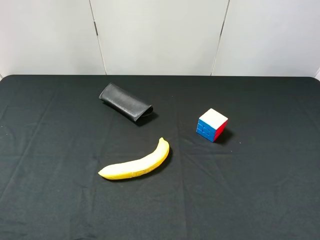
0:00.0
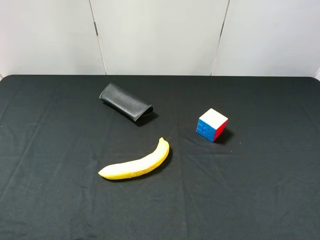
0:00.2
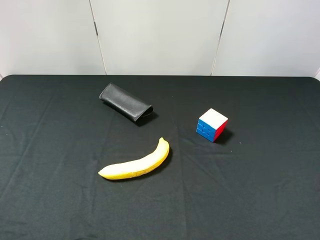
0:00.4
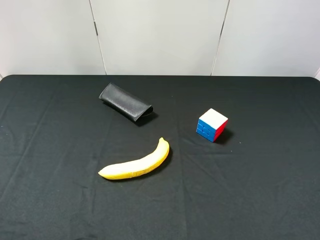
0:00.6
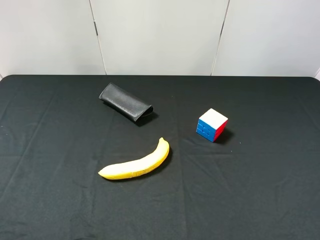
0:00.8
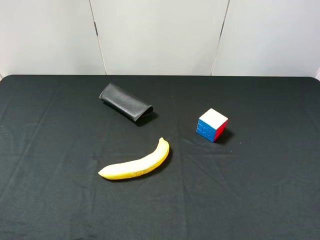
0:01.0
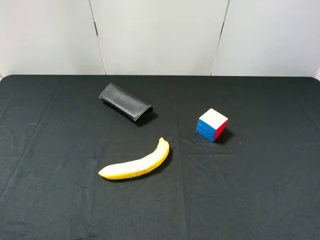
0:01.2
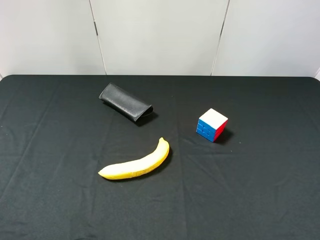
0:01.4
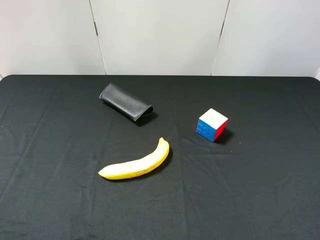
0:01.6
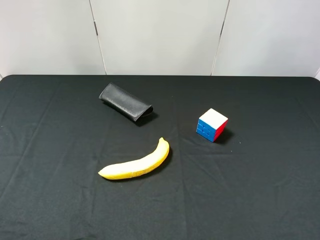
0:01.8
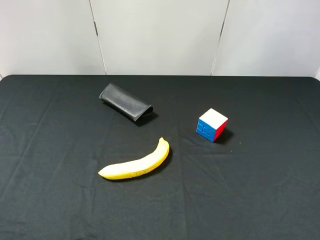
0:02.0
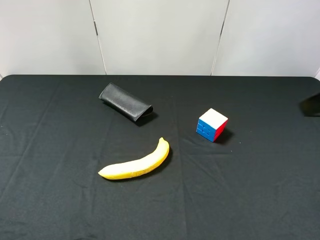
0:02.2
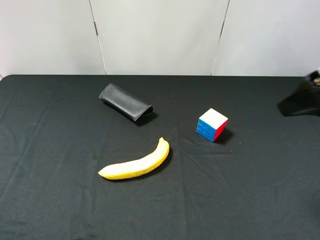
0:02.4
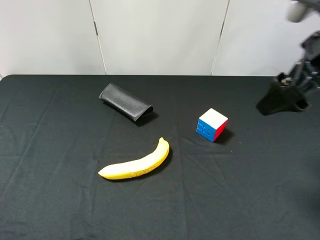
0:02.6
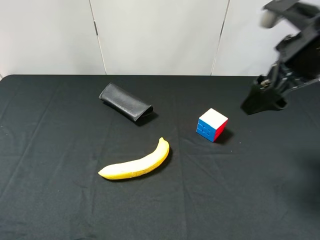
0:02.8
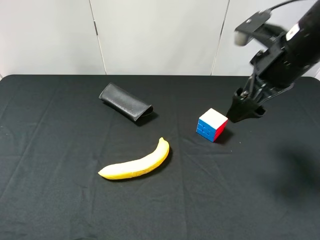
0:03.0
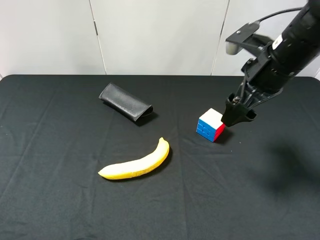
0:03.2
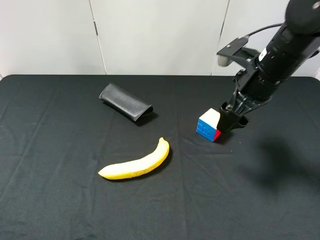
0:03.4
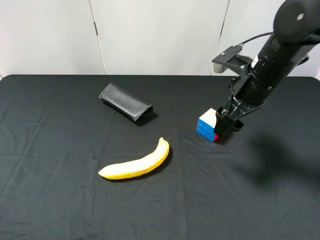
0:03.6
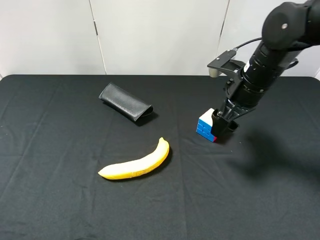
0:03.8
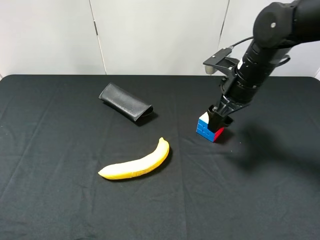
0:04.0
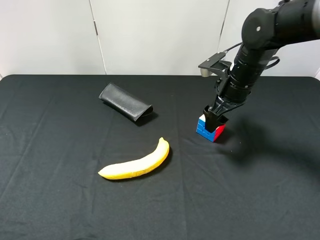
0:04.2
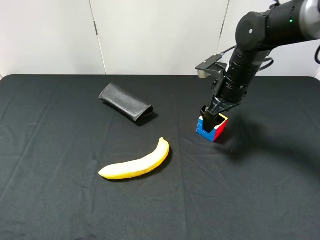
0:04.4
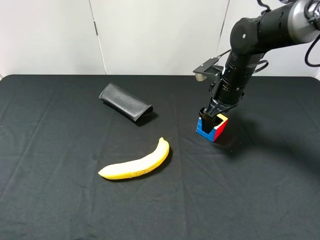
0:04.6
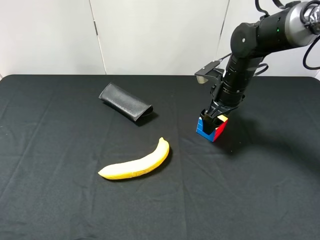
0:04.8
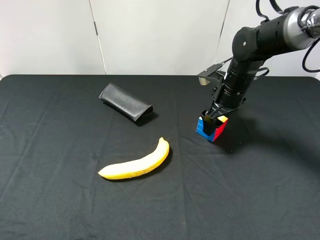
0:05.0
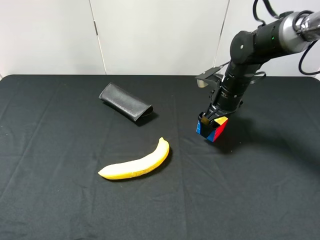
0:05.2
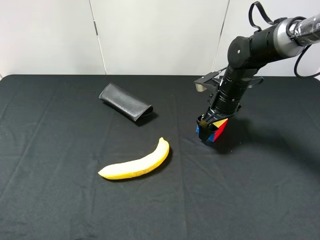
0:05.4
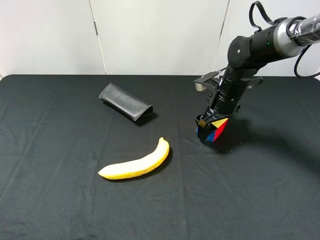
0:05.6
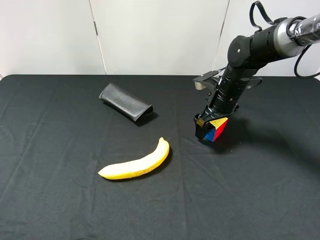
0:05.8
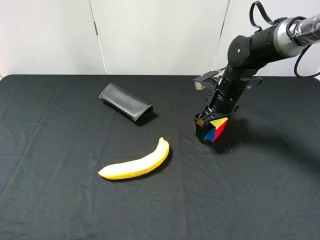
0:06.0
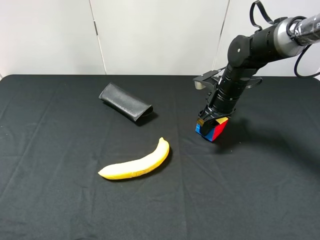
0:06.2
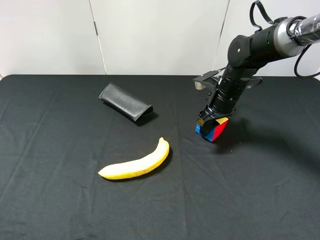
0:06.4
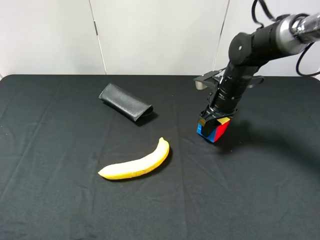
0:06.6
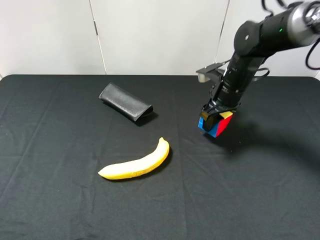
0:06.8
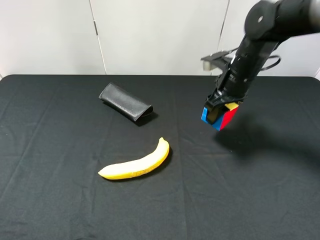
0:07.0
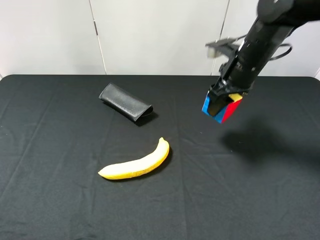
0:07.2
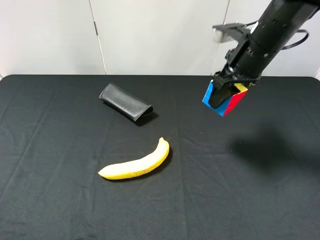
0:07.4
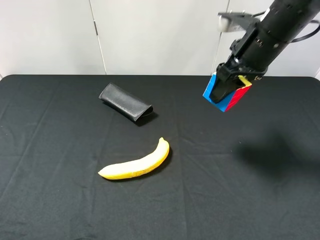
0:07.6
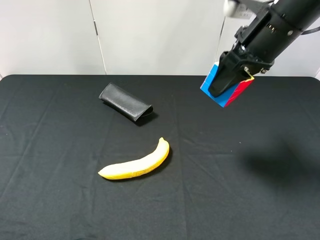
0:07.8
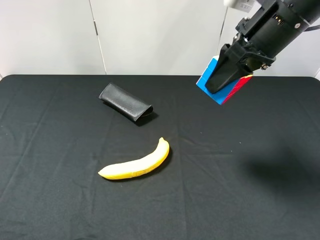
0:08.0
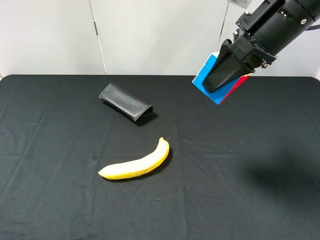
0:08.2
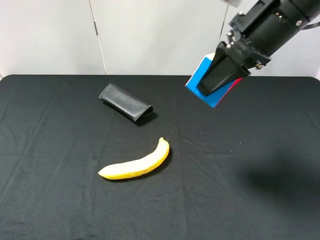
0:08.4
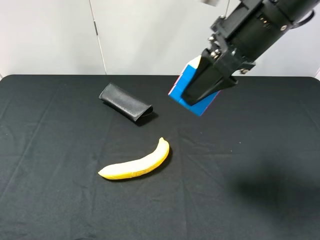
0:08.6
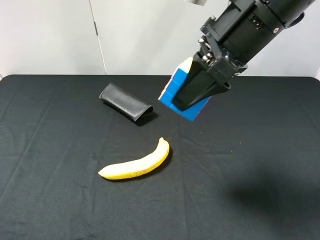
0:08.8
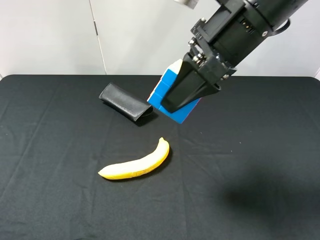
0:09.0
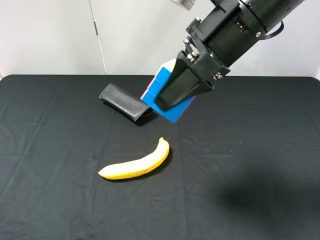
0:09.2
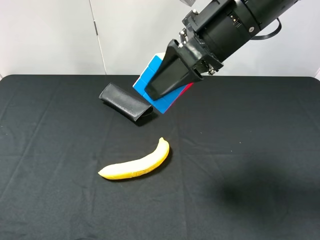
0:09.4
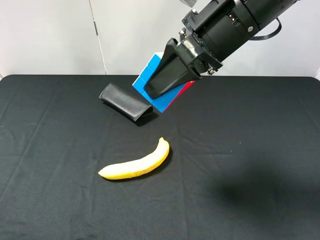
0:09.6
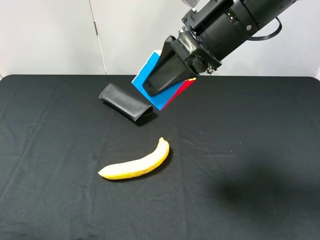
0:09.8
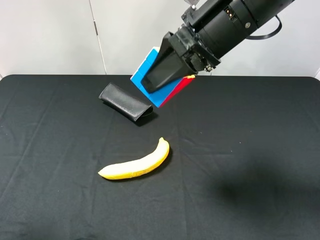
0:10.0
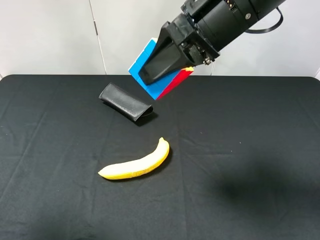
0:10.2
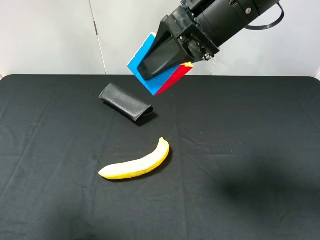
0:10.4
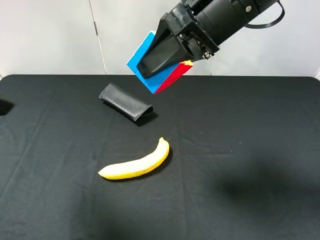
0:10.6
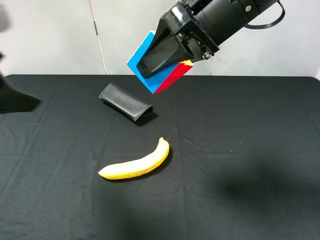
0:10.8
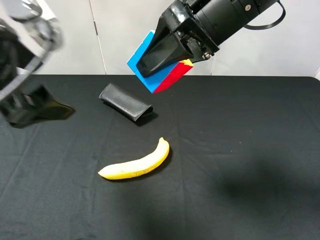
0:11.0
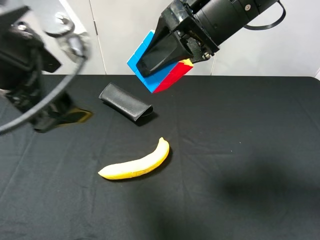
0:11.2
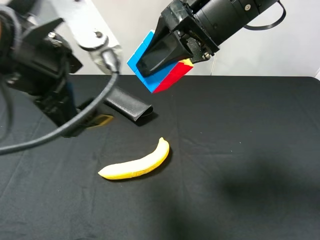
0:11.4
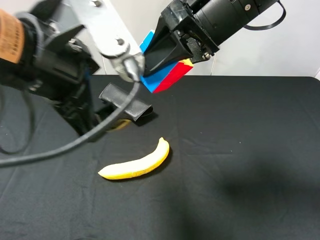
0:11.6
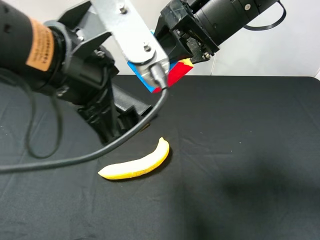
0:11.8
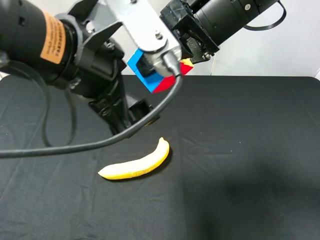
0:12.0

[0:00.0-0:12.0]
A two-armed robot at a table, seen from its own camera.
Task of the whole recording: use the right gripper to pick up the item and transfer it from the right gripper to the left gripper.
Step, 0:00.0 to 0:06.2: Use the right gripper to grab the Rubik's Cube on the right side of the table.
0:01.6 to 0:03.0: The right gripper is displaced forward and to the left by roughly 25 cm.
0:03.0 to 0:04.4: The right gripper is displaced downward and forward by roughly 15 cm.
0:04.4 to 0:06.0: The right gripper shifts by approximately 5 cm.
0:06.0 to 0:07.6: The right gripper goes about 15 cm upward and backward, and closes.
0:07.6 to 0:09.0: The right gripper shifts roughly 10 cm to the left and backward.
0:09.0 to 0:10.4: The left gripper is displaced forward and upward by about 15 cm.
0:10.4 to 0:12.0: The left gripper goes approximately 20 cm to the right.

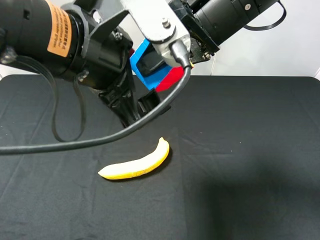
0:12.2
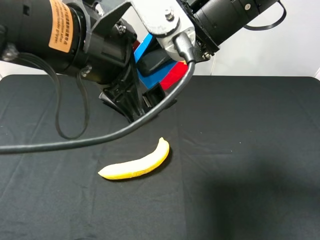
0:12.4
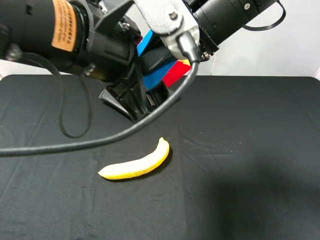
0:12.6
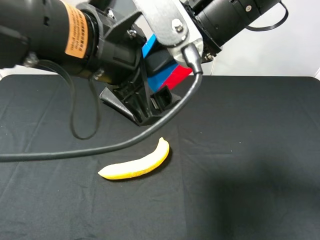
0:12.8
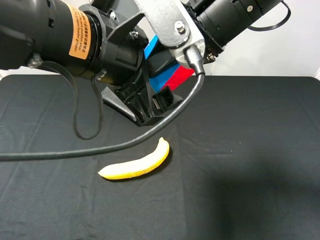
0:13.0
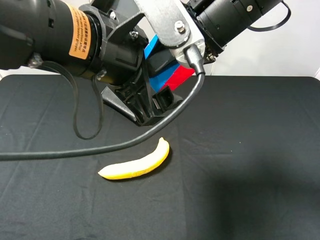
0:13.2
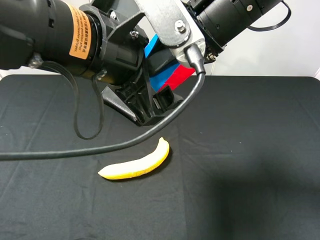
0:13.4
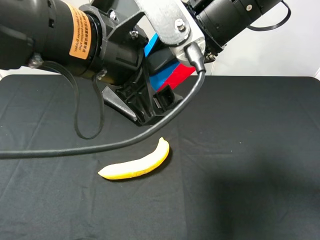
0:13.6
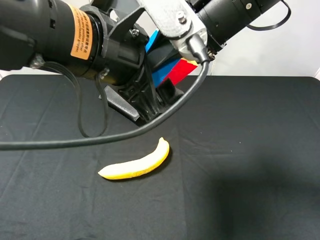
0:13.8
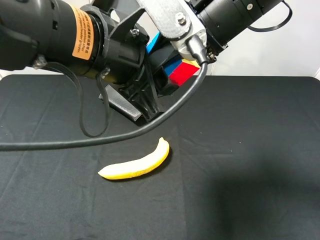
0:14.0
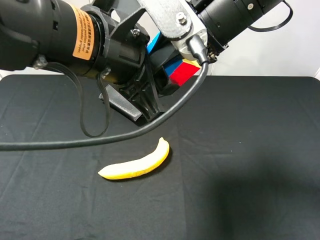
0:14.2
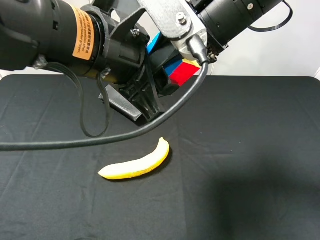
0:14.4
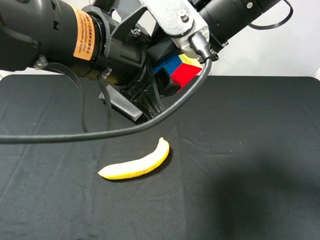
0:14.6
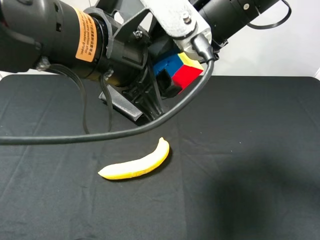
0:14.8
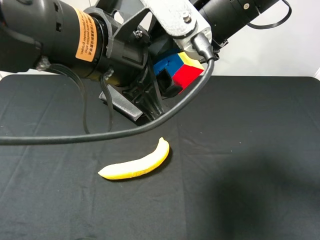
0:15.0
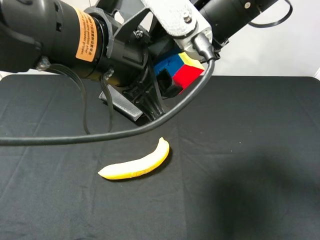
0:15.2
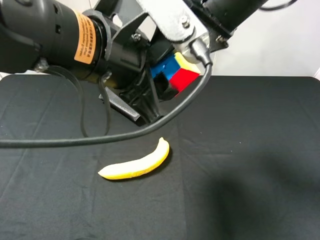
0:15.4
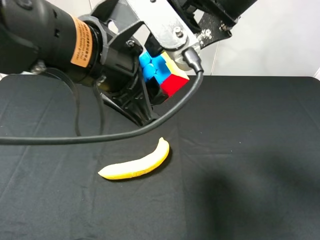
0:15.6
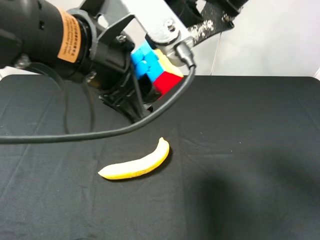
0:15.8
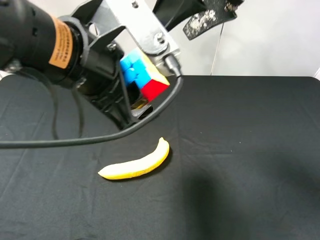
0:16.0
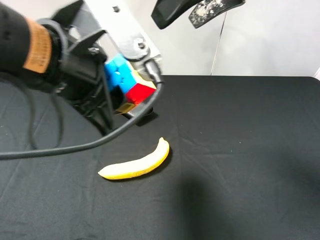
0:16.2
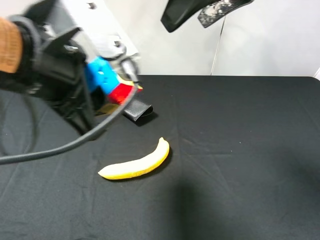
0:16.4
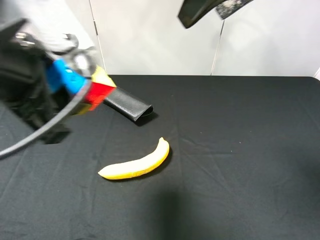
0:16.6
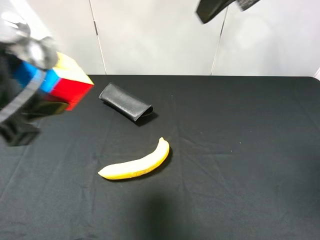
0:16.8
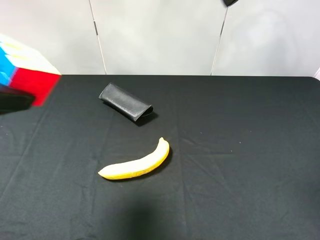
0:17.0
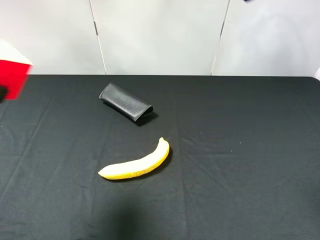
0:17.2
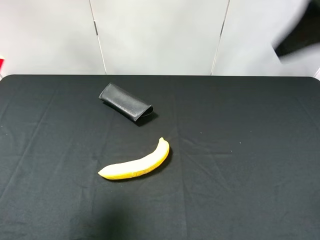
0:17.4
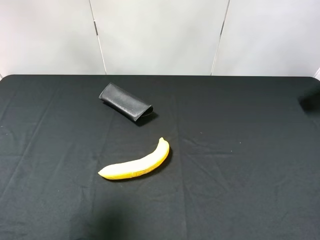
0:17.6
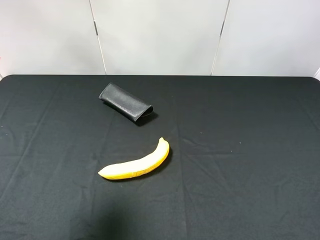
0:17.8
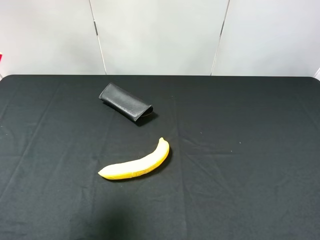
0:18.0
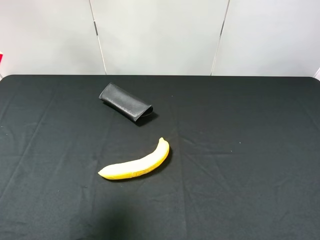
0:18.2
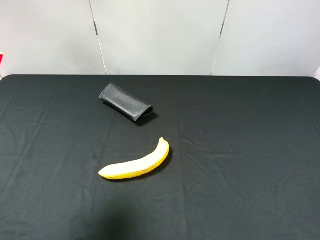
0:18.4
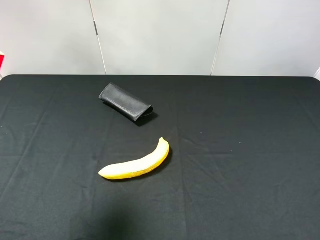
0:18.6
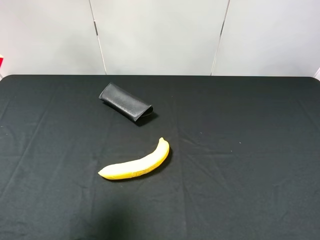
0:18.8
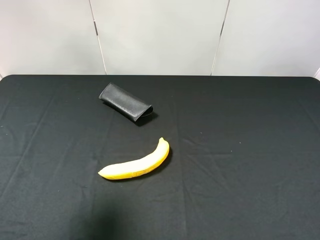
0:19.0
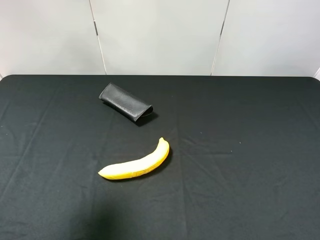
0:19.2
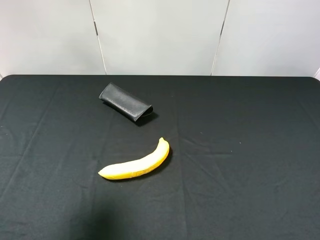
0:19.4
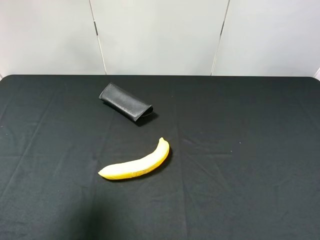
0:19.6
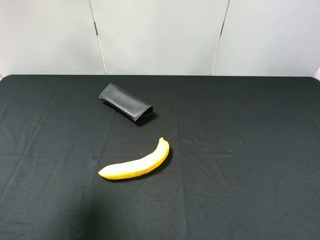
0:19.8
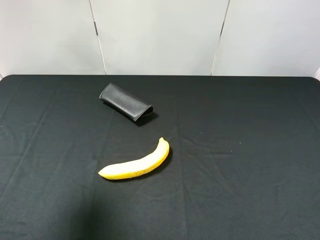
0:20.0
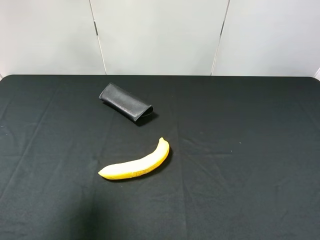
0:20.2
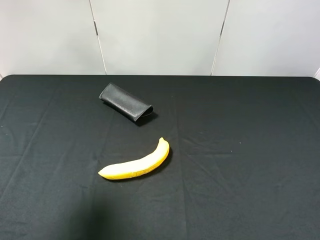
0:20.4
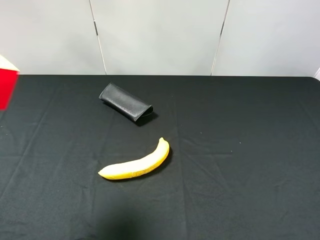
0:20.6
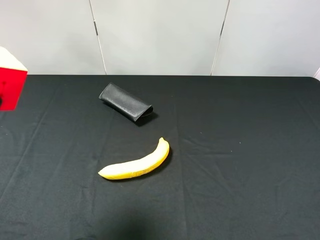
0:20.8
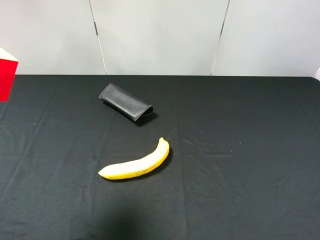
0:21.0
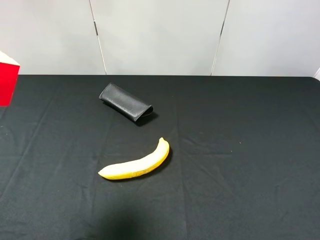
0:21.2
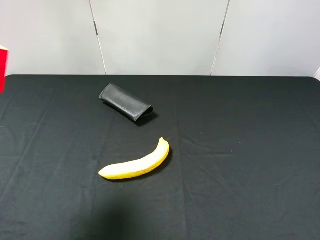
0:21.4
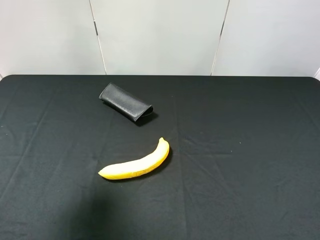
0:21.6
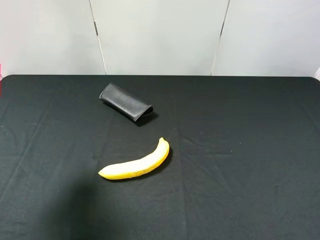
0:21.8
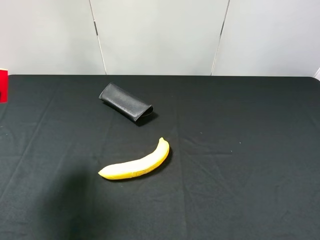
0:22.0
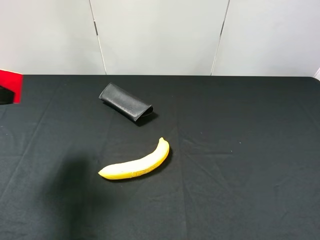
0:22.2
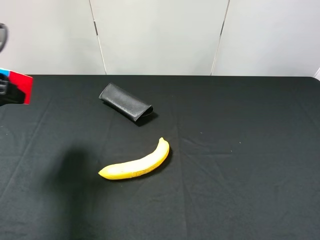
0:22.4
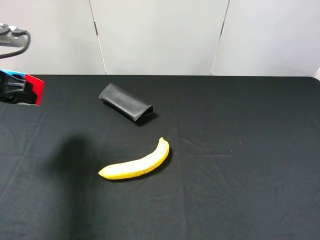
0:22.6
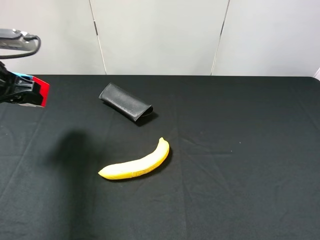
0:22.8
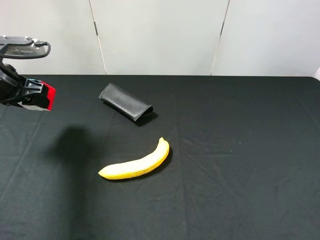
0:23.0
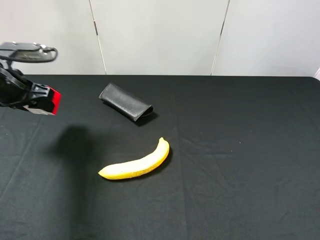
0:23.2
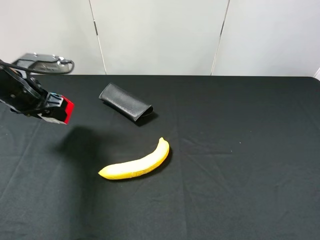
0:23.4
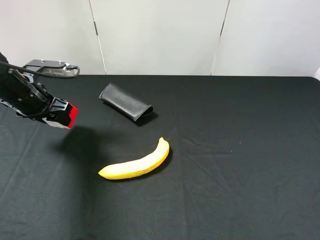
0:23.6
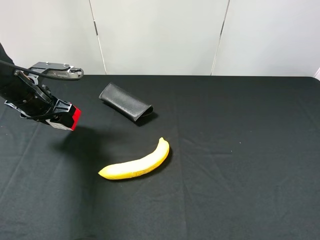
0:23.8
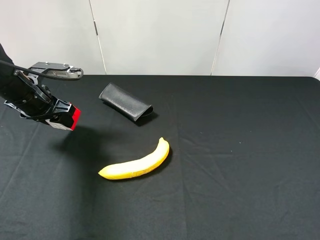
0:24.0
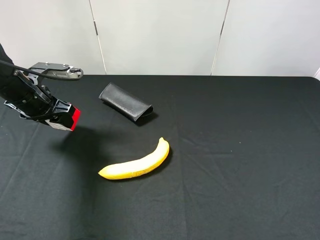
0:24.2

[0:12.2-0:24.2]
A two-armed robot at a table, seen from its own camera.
Task of the whole recording: use the right gripper to pick up the item and transfer it from the right gripper to the left gripper.
Step, 0:12.2 to 0:14.8: Pass the Rubik's Cube to the left gripper.
0:12.2 to 0:13.8: The grippers stay close to where they were, moving slightly.
0:13.8 to 0:15.2: The right gripper opens its fingers, while the left gripper closes its fingers.
0:15.2 to 0:16.6: The left gripper is displaced to the left by some 10 cm; the right gripper shifts approximately 5 cm upward.
0:16.6 to 0:18.2: The left gripper is displaced to the left by approximately 10 cm. Meanwhile the right gripper heads backward, to the right and downward, covering roughly 35 cm.
0:21.2 to 0:22.6: The left gripper shifts approximately 20 cm forward and downward.
0:22.6 to 0:24.2: The left gripper shifts roughly 10 cm downward and forward.
